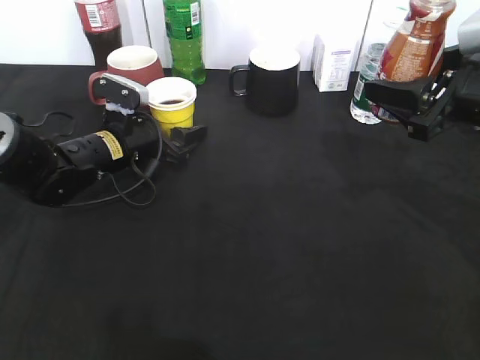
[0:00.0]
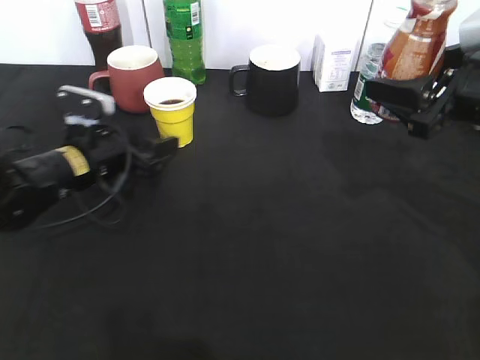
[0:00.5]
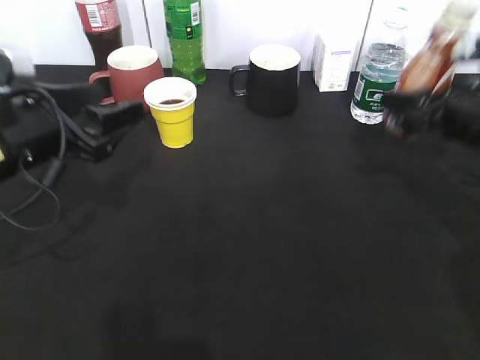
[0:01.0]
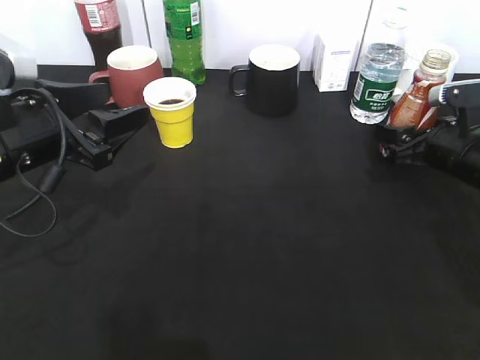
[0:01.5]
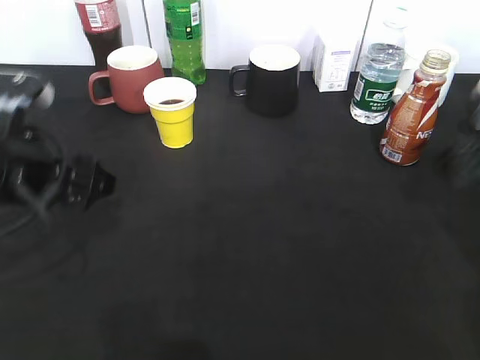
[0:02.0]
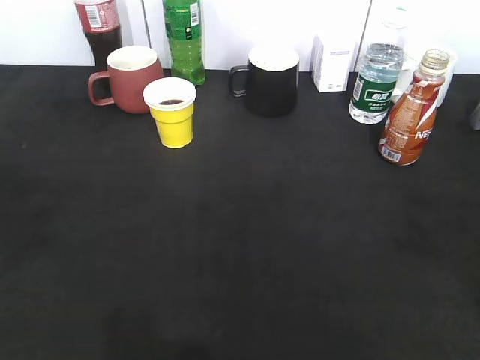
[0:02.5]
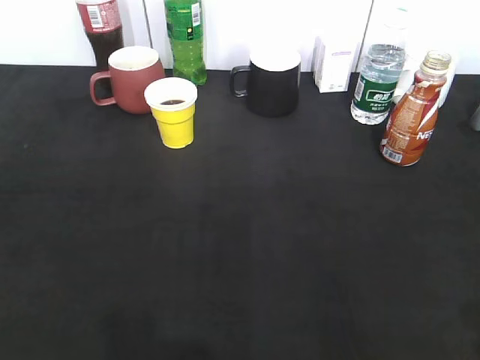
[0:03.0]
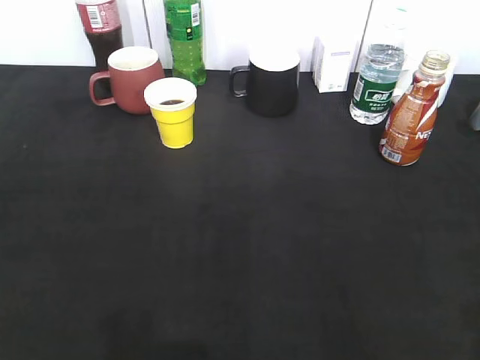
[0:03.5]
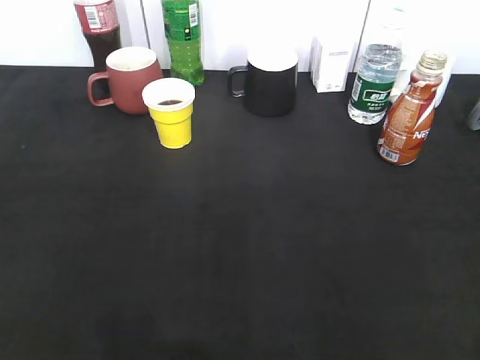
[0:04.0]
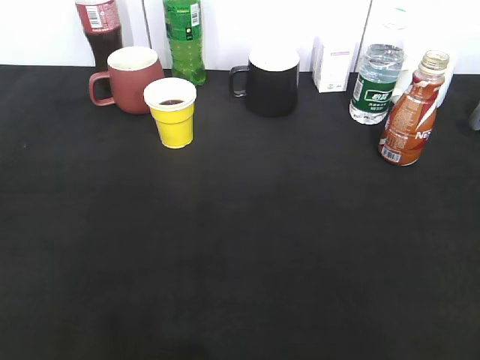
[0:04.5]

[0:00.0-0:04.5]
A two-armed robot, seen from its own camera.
Step, 0:00.5 to 0:01.5: Place the coffee bottle on the table with right gripper.
0:00.0 to 0:02.0: The left gripper heads backward and upward, covering approximately 20 cm. Meanwhile the right gripper travels to the right by some 5 cm, and opens.
0:02.0 to 0:04.5: The left gripper goes about 25 cm backward and to the left, and closes; the right gripper shifts about 30 cm backward.
